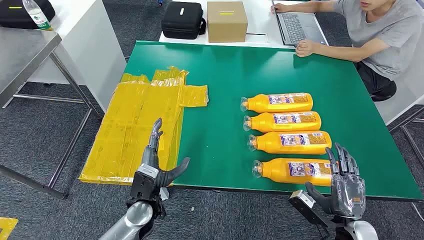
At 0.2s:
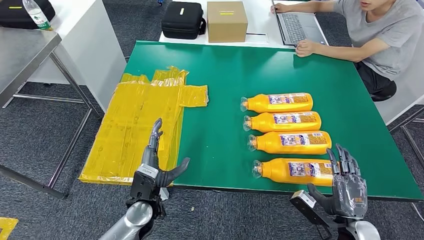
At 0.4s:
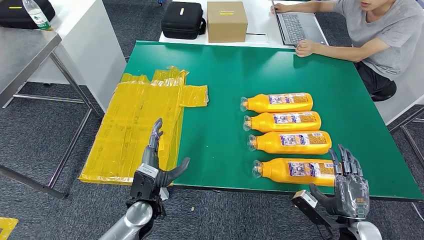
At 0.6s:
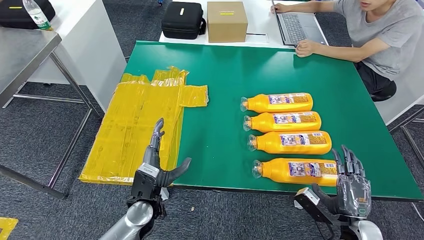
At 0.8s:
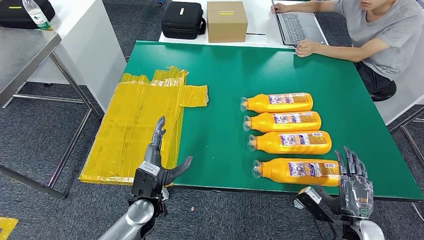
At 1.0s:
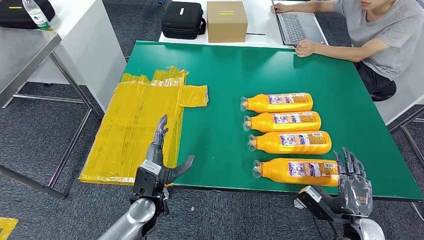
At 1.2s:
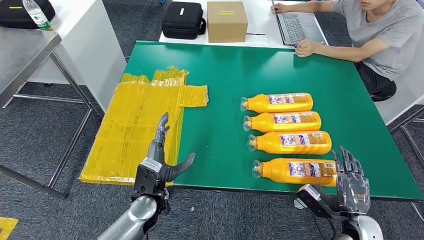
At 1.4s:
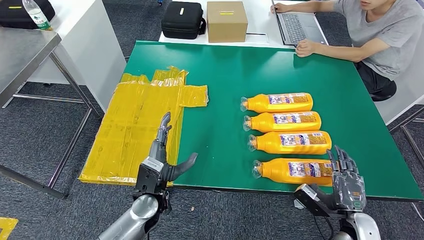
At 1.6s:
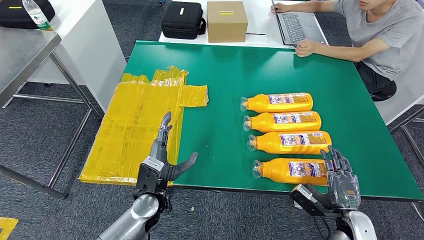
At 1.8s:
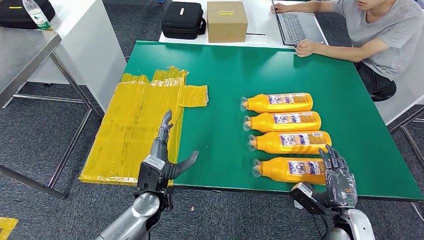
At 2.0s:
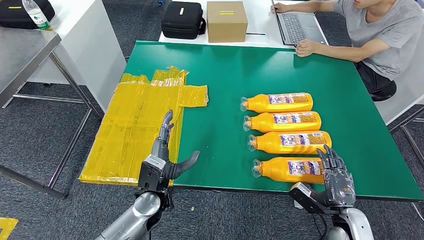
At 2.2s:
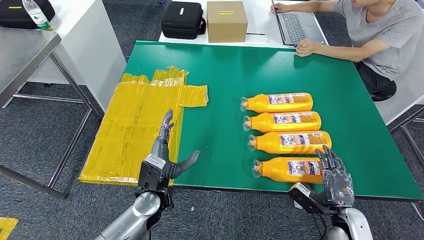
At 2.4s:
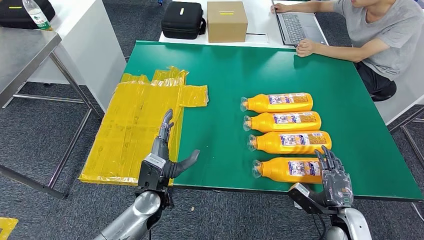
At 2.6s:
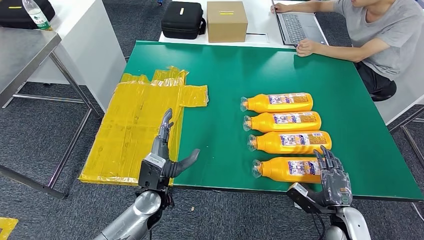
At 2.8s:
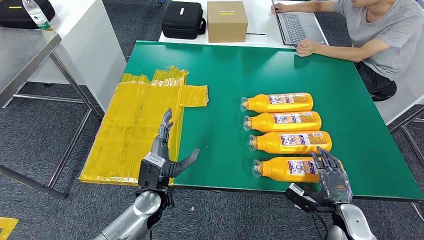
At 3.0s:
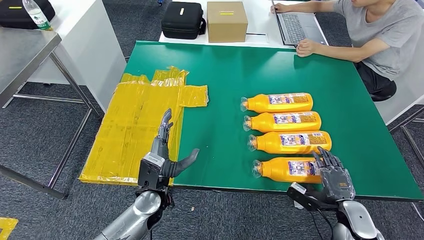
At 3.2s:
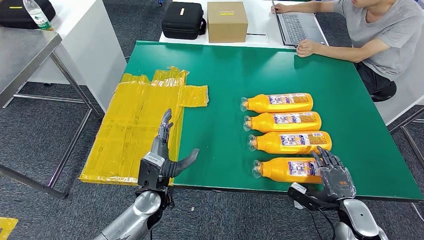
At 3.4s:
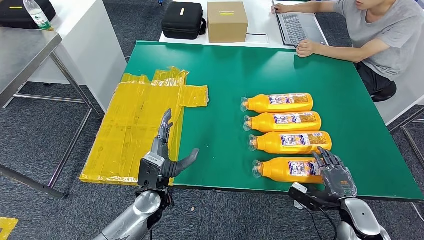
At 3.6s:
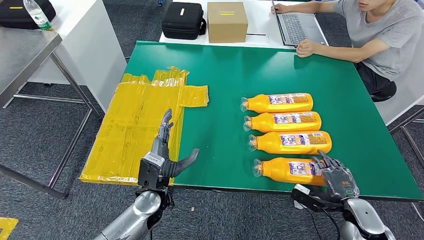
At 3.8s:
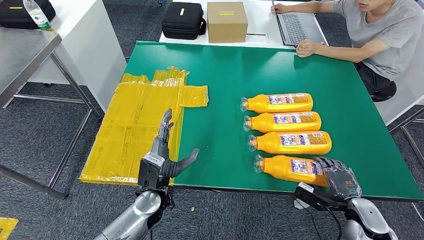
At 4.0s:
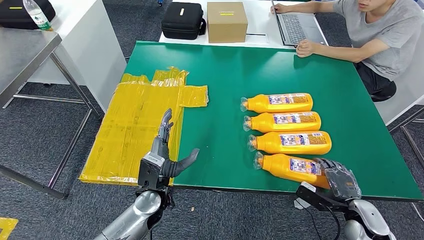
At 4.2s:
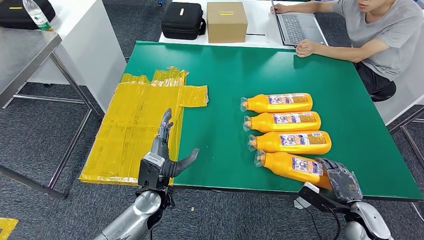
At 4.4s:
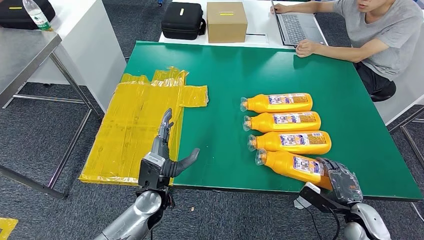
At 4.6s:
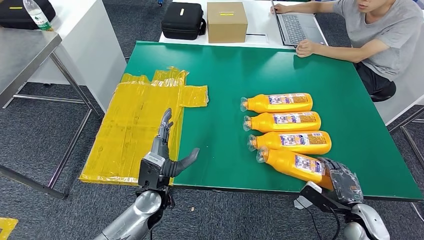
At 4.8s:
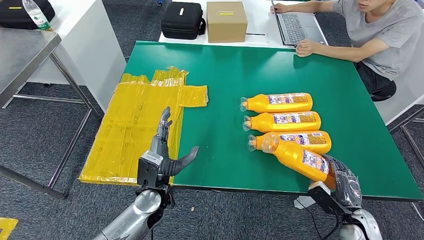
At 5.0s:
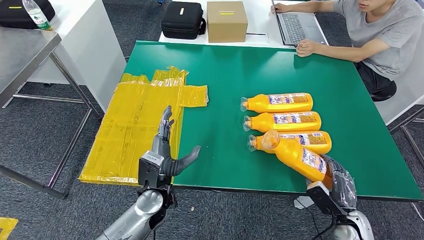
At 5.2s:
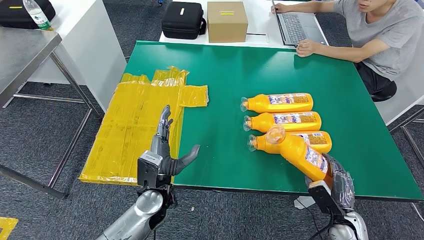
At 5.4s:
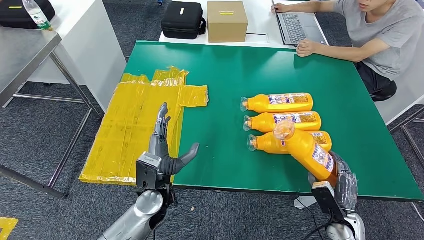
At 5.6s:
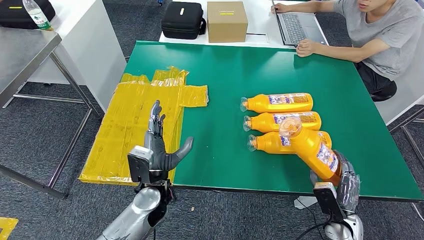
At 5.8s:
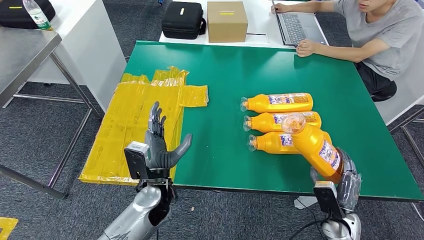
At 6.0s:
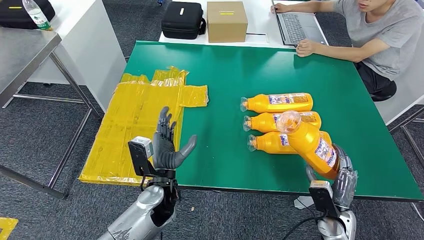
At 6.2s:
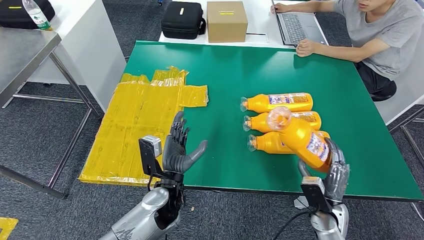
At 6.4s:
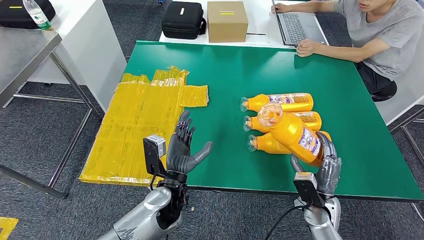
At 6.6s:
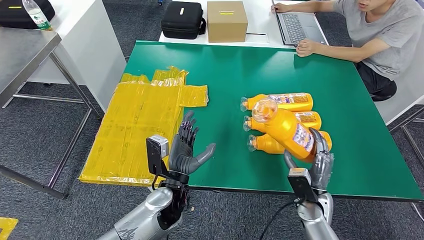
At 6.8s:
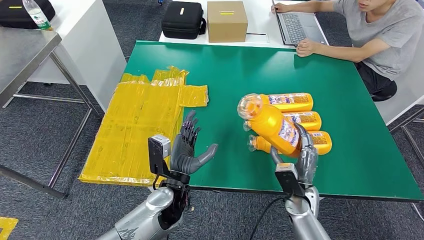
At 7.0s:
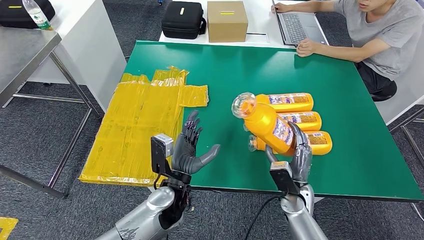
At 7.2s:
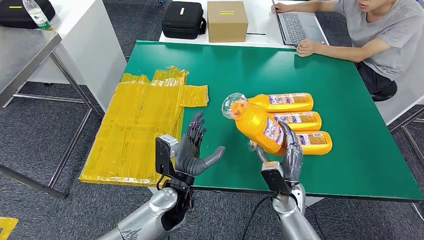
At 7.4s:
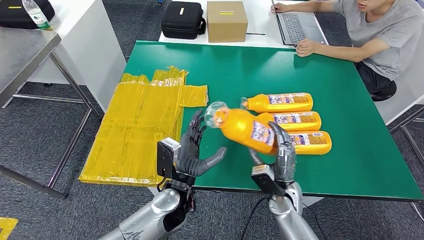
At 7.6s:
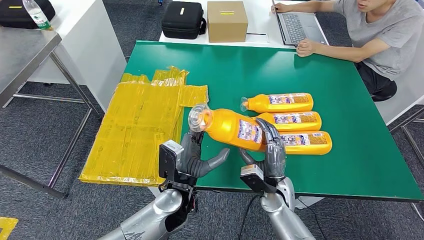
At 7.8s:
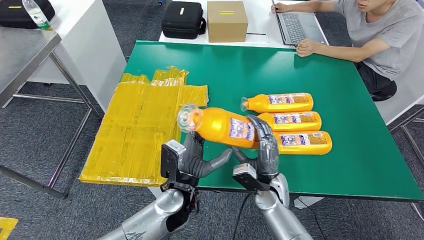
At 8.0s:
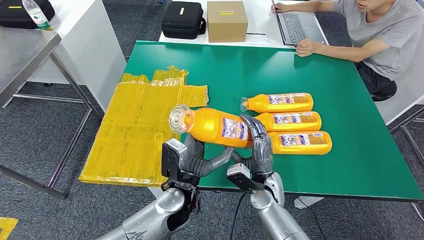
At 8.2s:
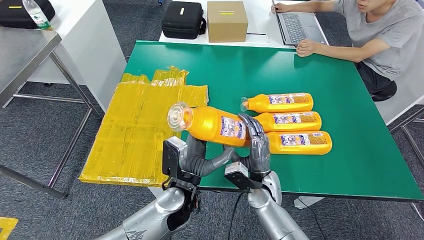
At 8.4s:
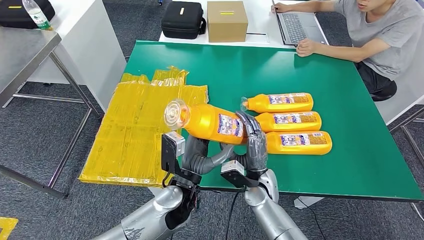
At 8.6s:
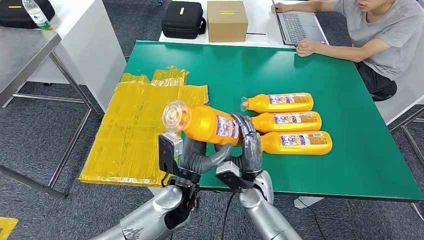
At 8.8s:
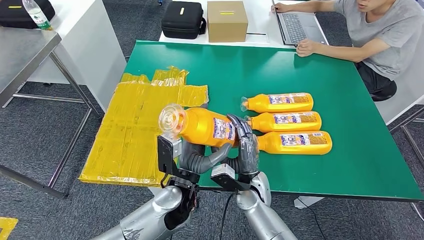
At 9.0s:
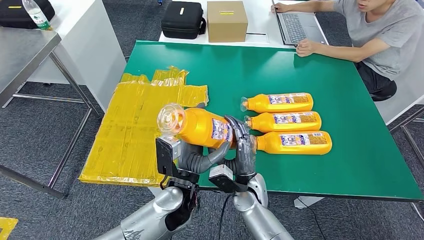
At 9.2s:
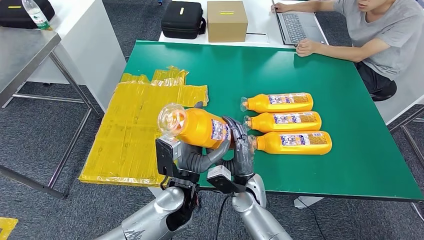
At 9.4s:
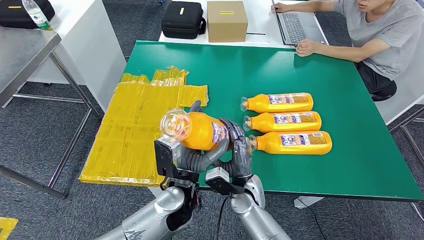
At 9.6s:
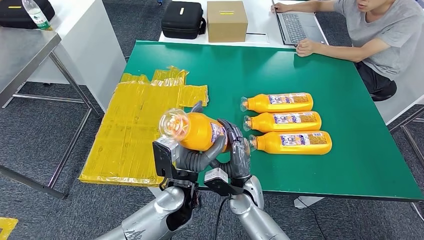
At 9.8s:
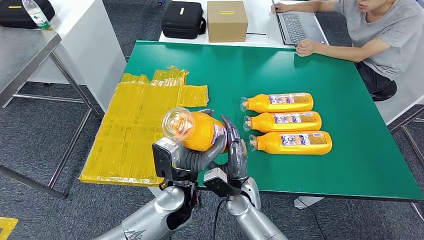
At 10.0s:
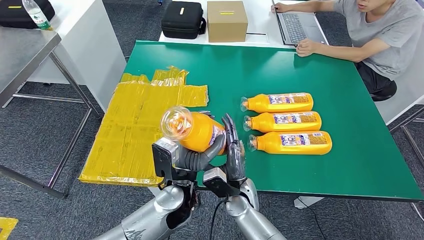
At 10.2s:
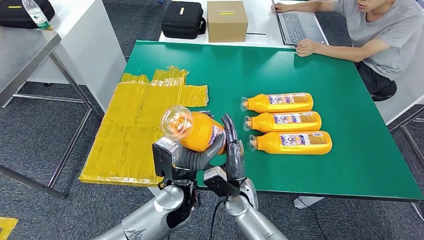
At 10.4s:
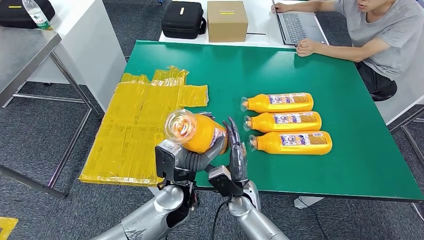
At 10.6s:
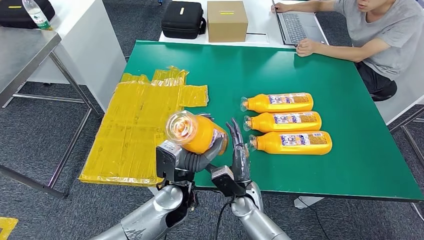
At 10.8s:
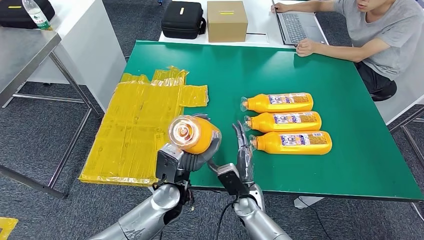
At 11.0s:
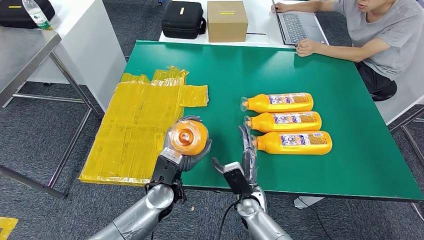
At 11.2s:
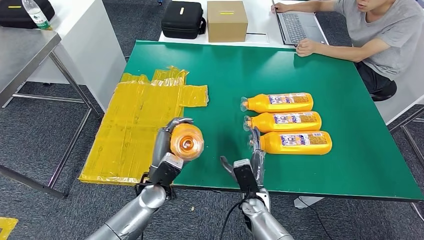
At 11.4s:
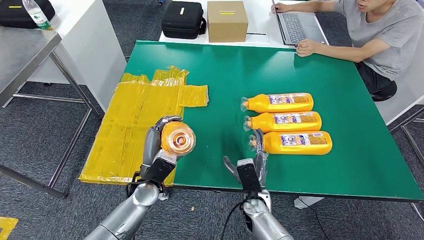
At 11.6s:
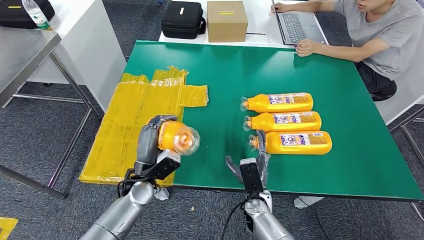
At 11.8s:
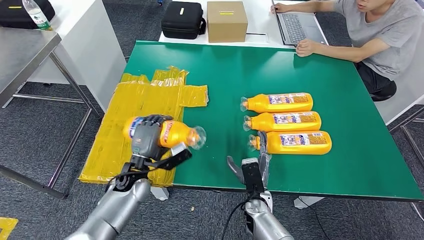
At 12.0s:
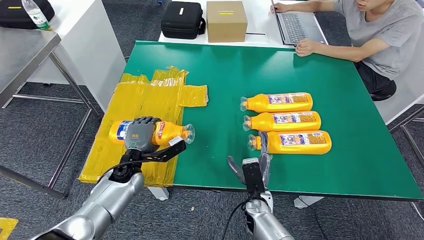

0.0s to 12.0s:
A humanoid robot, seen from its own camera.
Step, 0.0s to 8.0s: Take the fast-moving consumer goods bottle from the table.
1.6s to 3.0s: The hands move only a little.
3.0s to 4.4s: The hands move only a little.
4.4s to 6.0s: The right hand moves to the left, about 10 cm.
6.0s to 7.6s: The left hand changes place by approximately 5 cm. The right hand goes approximately 15 cm to the left.
7.6s to 9.0s: The right hand shifts about 10 cm to the left.
9.0s to 10.4s: The hands move only a little.
10.4s to 12.0s: The left hand moves to the left, forward and downward, some 20 cm, while the right hand shifts by roughly 5 cm.

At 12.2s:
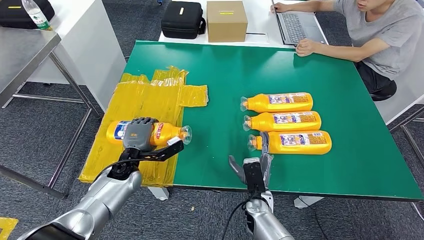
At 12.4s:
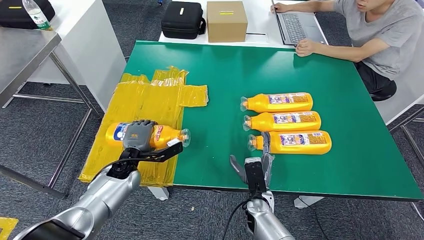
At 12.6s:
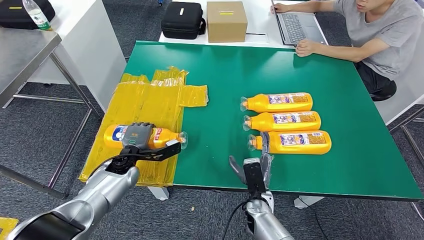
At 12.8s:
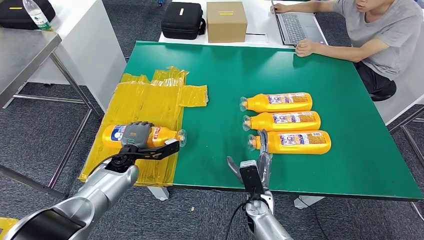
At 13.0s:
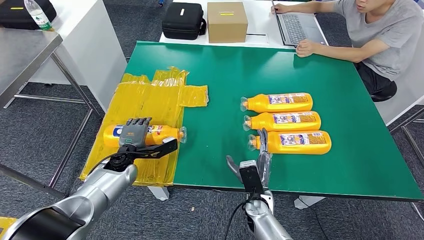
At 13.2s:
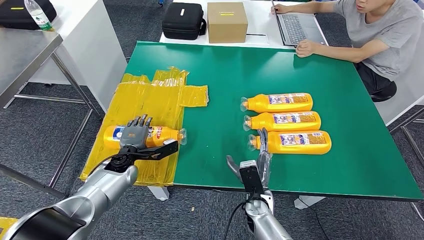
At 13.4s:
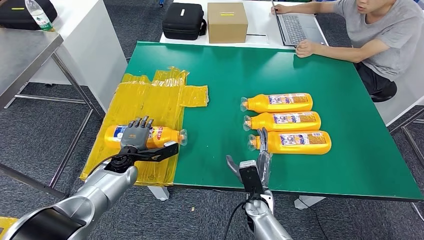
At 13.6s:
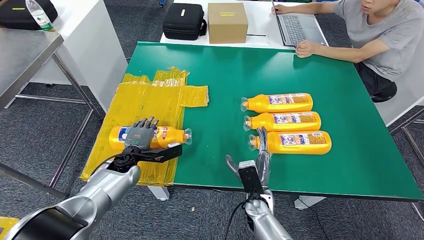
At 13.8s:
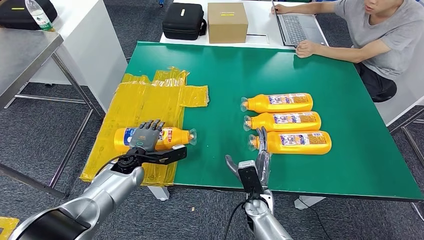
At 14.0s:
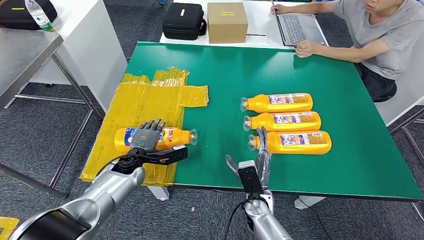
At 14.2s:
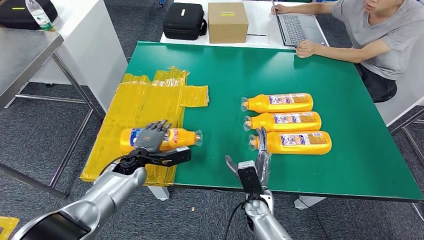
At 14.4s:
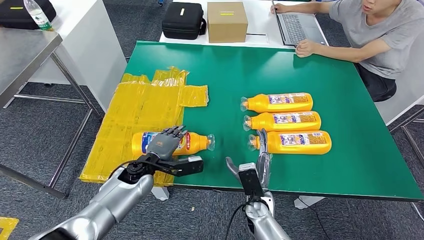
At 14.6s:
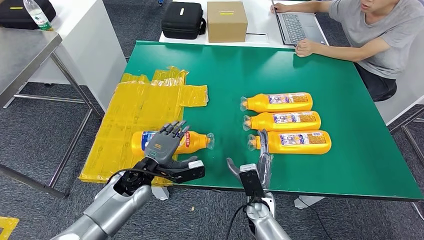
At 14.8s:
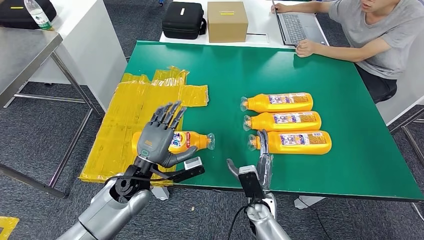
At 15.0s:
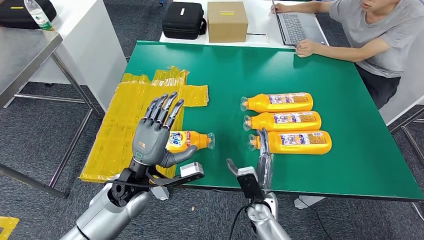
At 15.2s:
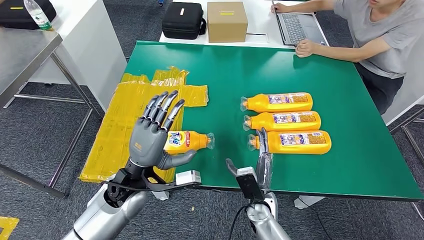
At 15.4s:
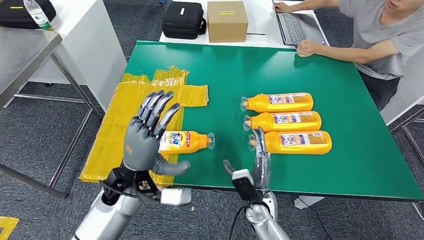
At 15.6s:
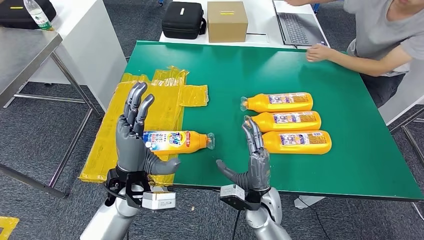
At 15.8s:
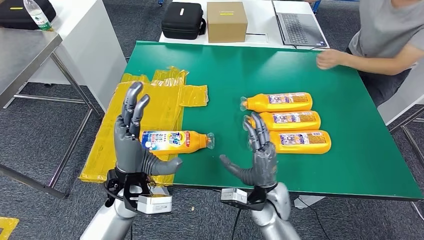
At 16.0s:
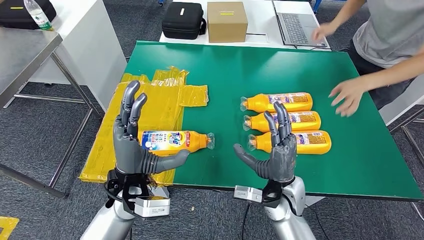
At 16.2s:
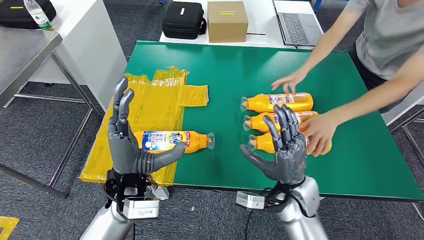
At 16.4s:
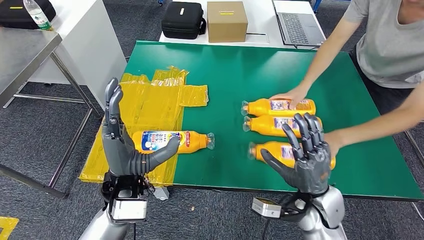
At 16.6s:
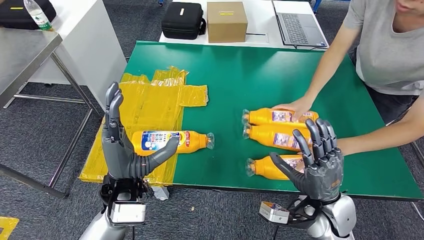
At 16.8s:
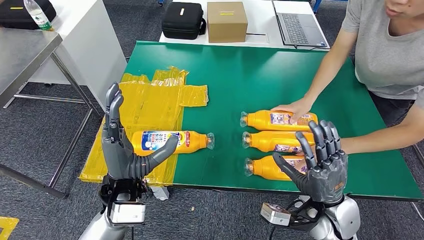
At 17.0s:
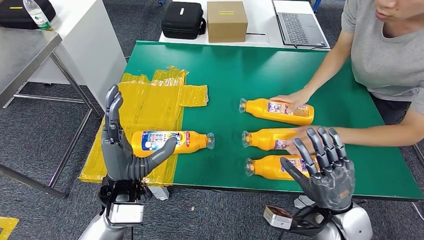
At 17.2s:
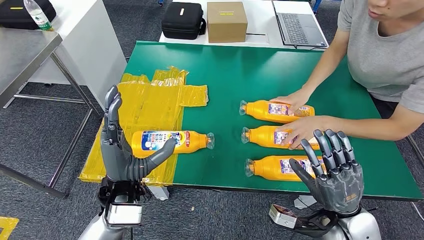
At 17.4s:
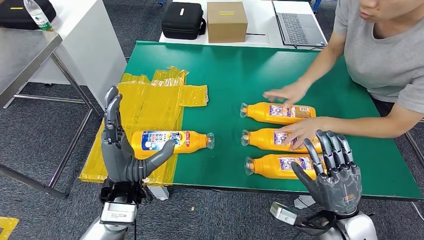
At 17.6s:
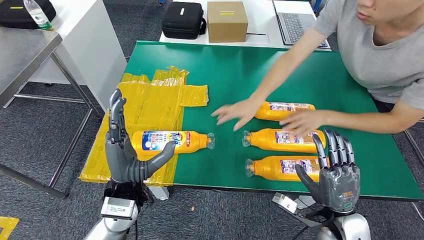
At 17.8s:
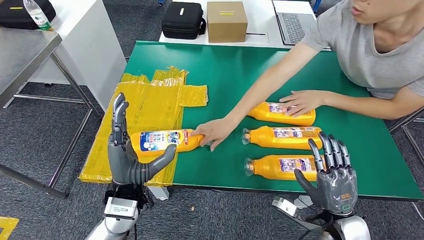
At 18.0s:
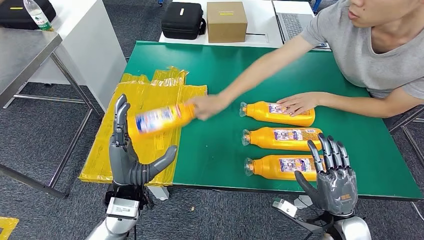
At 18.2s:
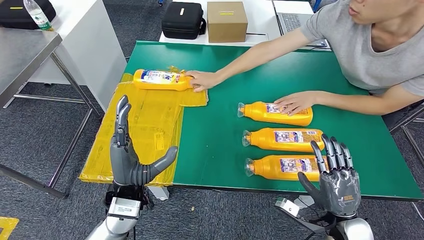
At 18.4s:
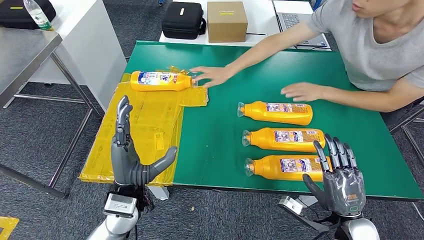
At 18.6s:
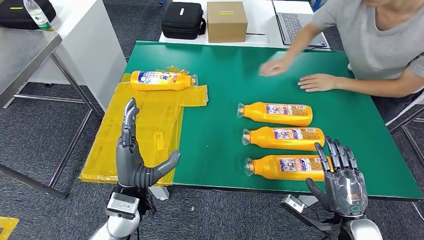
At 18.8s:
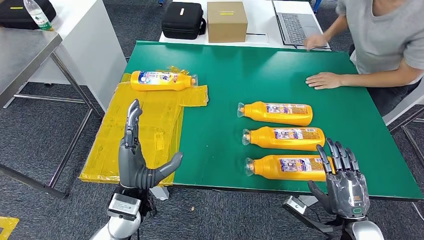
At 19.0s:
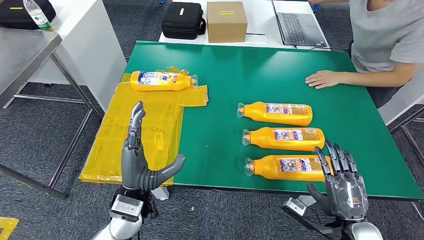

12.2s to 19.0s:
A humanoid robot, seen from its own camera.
Step, 12.2s to 14.2s: Flip the fast-moving consumer goods bottle to the front side.
13.6s to 15.0s: The left hand heads upward and backward, covering about 15 cm.
